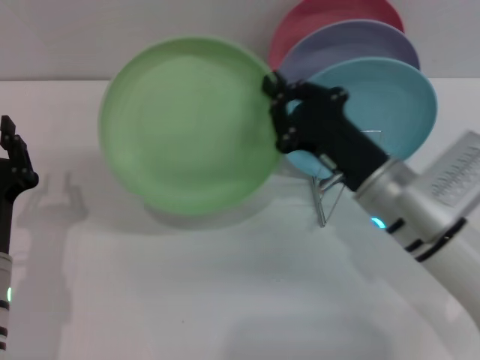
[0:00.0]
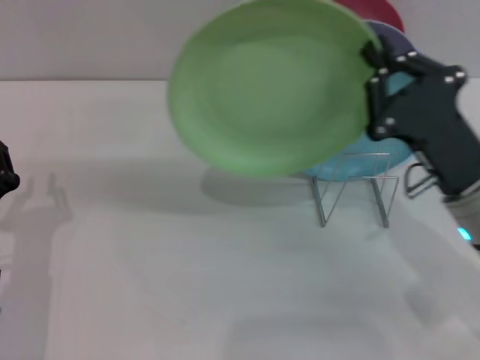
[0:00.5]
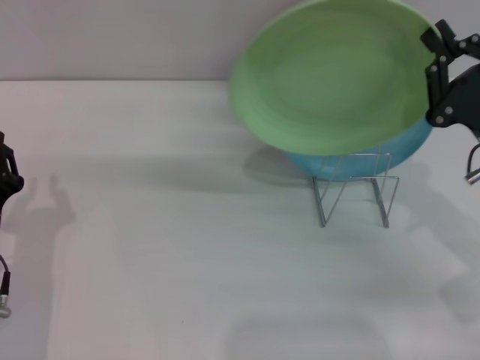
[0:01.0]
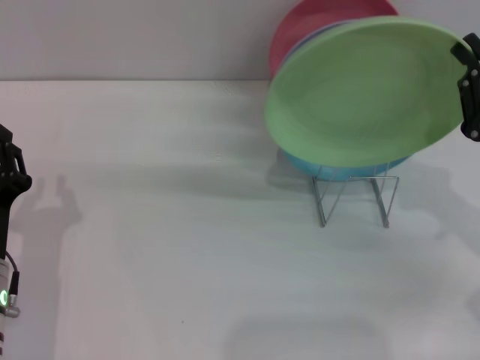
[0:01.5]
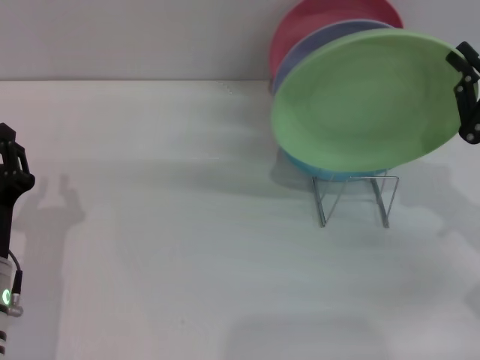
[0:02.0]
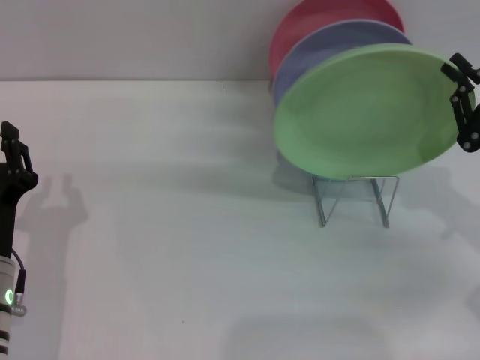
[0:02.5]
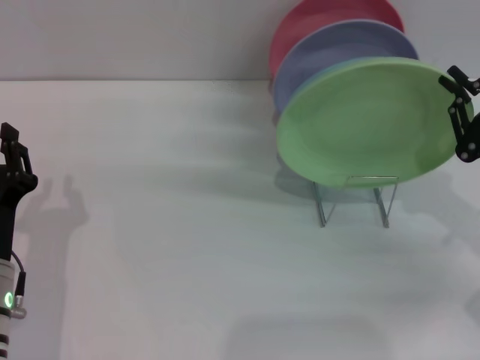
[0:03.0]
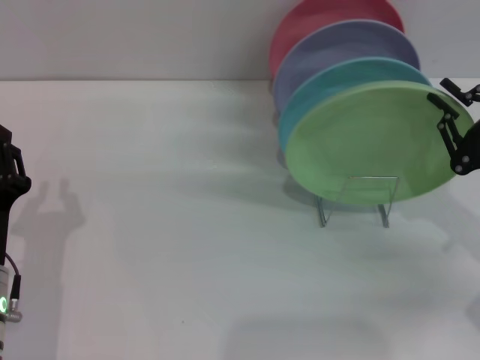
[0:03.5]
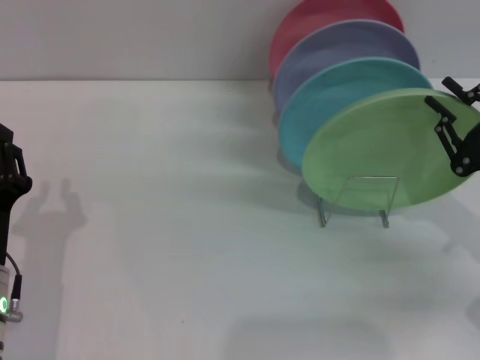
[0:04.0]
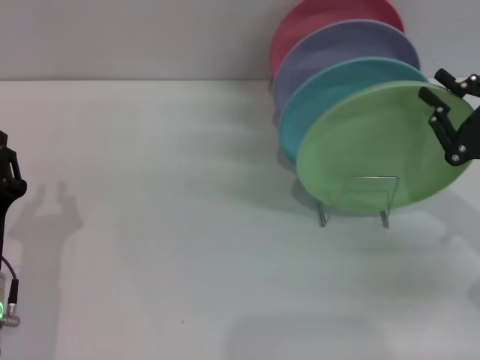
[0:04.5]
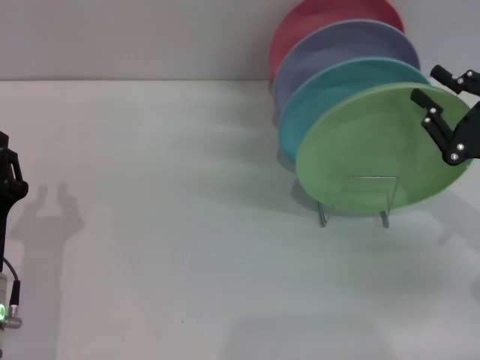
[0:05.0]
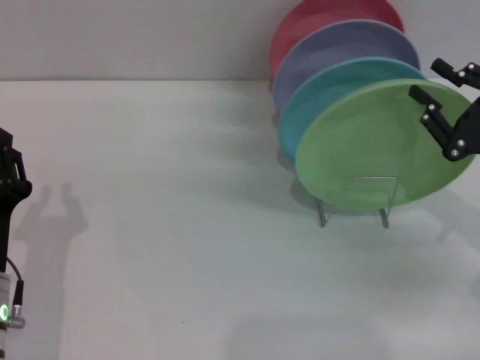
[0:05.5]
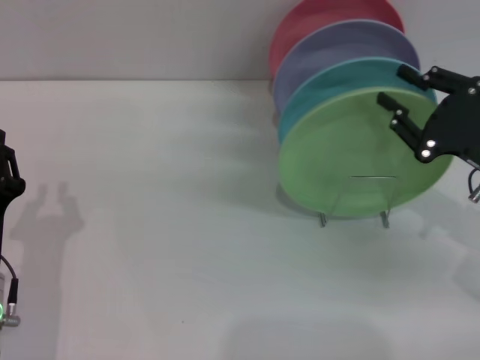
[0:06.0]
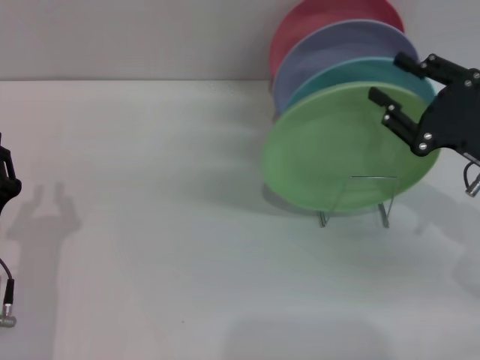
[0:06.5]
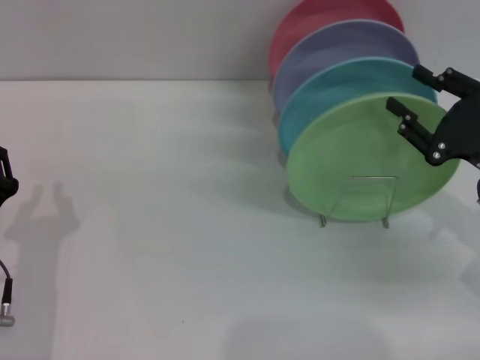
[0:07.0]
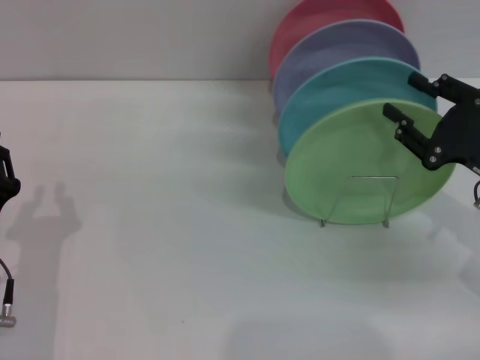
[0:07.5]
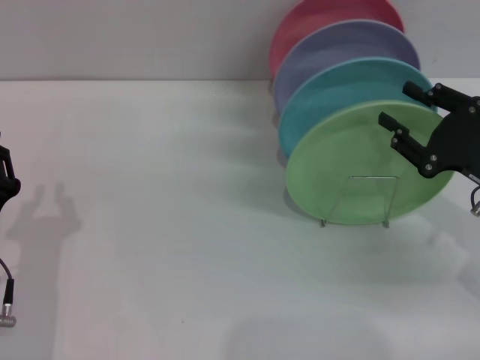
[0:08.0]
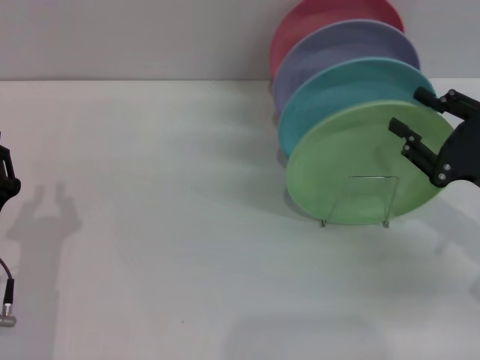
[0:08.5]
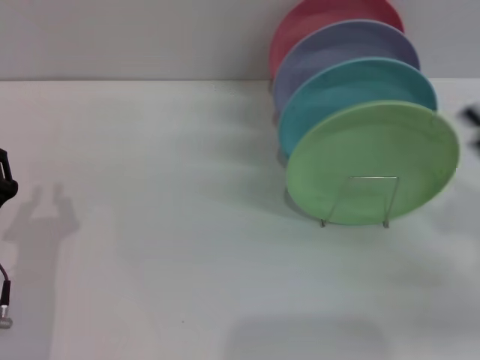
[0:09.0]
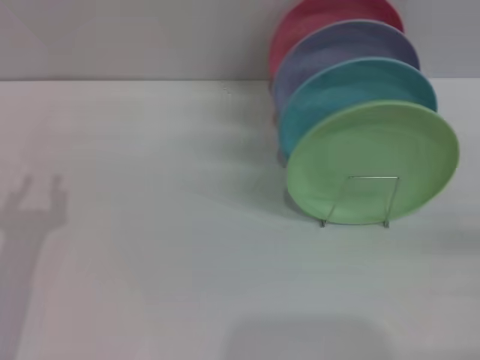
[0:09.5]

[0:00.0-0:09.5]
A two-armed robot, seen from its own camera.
Task of the whole recording: Grip the plate with one hand, pass it to the other, then set it on the shelf.
Step, 0:00.5 to 0:08.5: Place the plate on the shelf with the right gripper.
0:00.0 to 0:02.0: The right gripper shifts roughly 15 cm to the right.
0:02.0 to 0:04.0: The right gripper opens.
0:04.0 to 0:05.5: There are only small adjustments of the grippers.
0:05.5 to 0:07.5: There are only small adjustments of the grippers.
0:07.5 to 0:09.5: The right gripper is displaced backward and to the right by about 15 cm.
